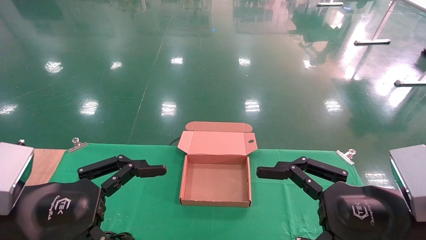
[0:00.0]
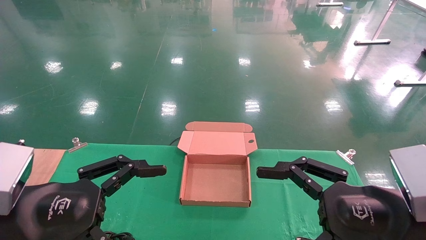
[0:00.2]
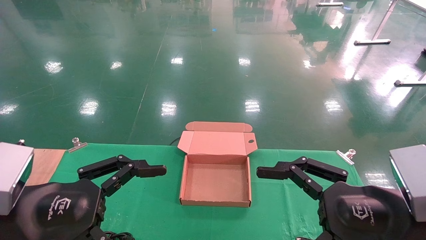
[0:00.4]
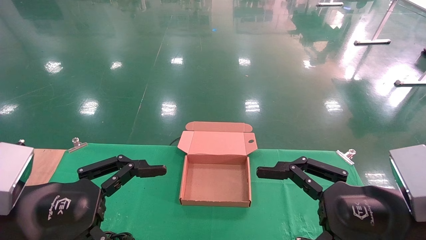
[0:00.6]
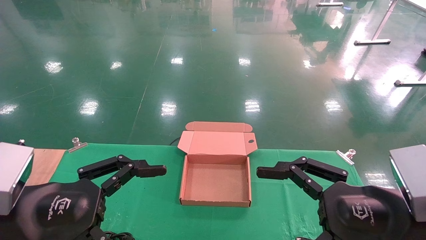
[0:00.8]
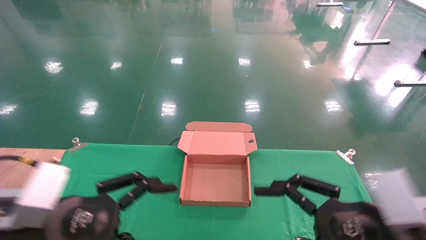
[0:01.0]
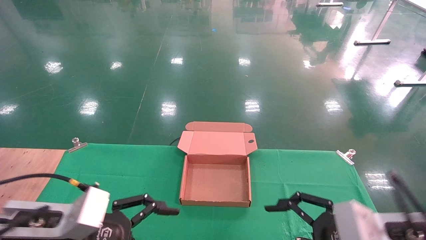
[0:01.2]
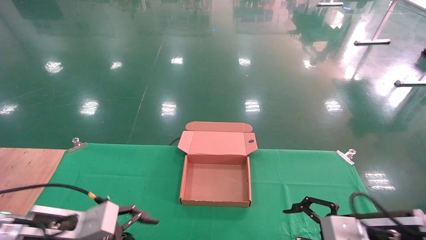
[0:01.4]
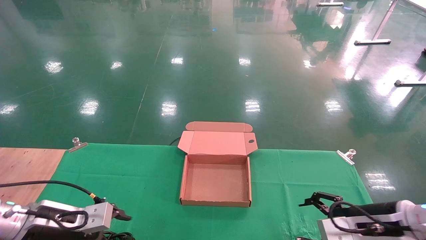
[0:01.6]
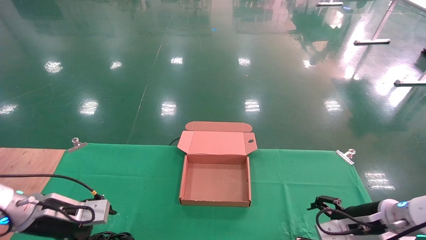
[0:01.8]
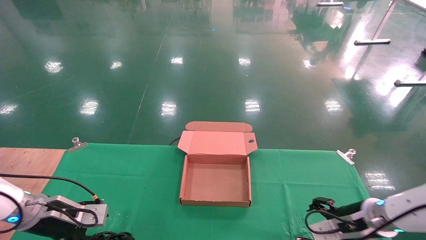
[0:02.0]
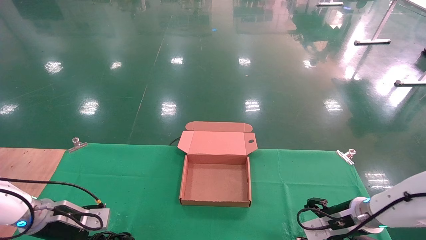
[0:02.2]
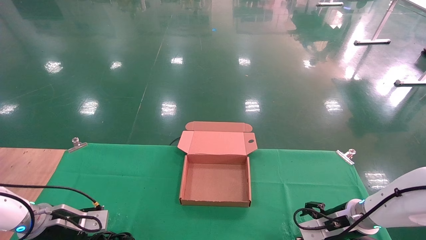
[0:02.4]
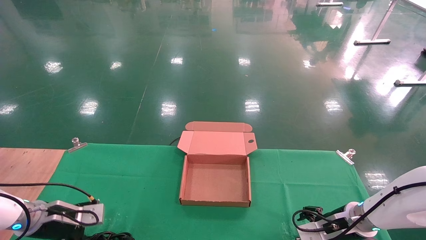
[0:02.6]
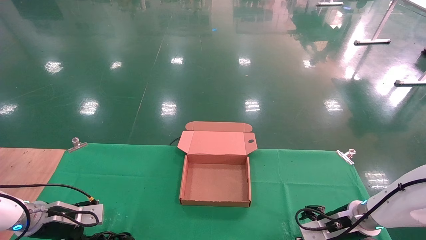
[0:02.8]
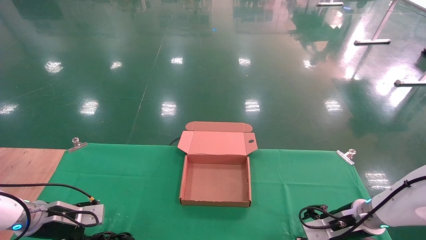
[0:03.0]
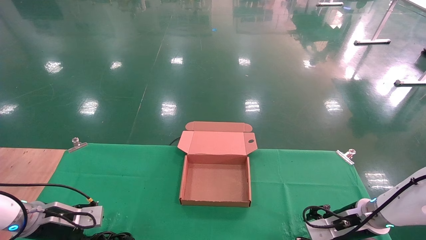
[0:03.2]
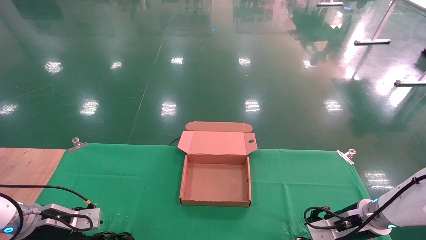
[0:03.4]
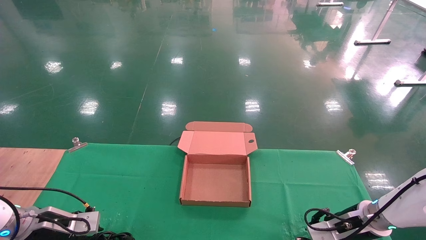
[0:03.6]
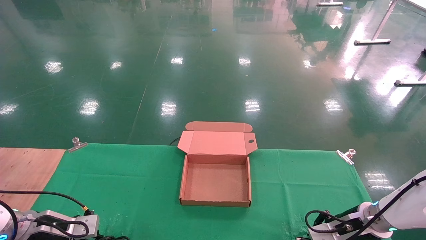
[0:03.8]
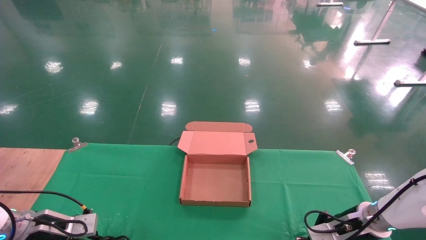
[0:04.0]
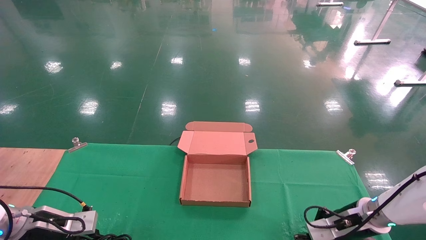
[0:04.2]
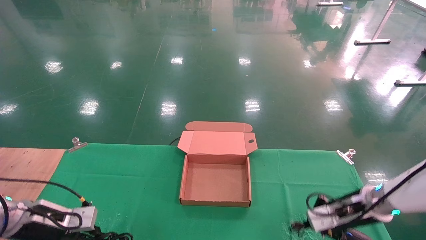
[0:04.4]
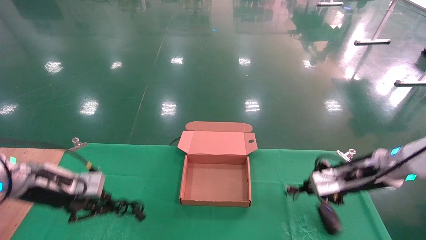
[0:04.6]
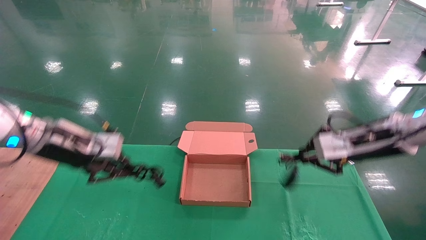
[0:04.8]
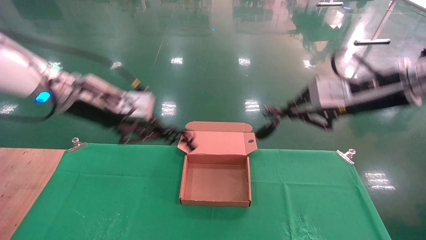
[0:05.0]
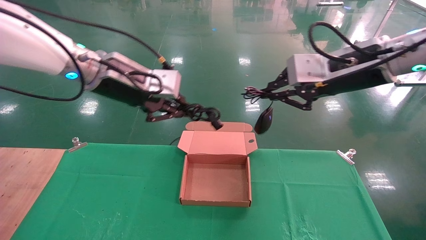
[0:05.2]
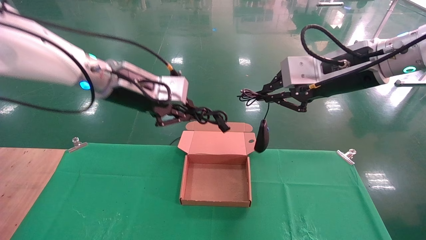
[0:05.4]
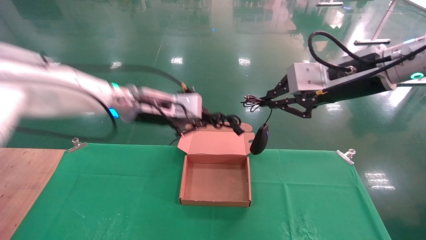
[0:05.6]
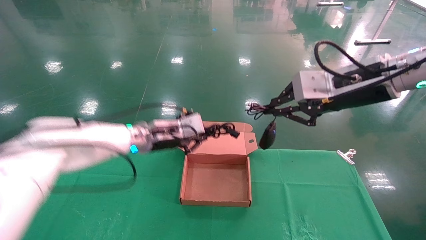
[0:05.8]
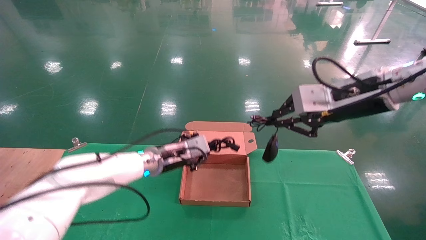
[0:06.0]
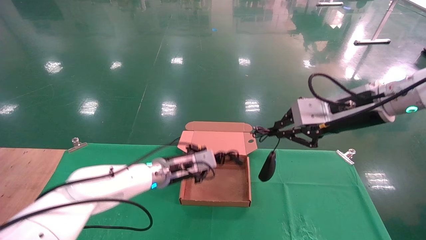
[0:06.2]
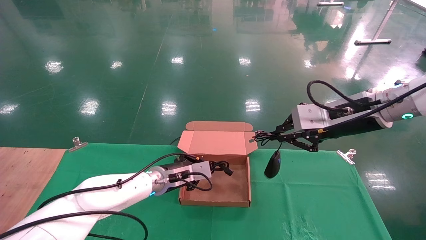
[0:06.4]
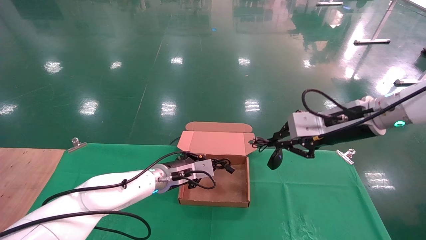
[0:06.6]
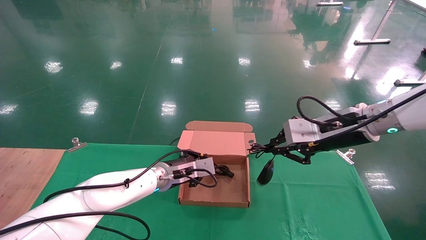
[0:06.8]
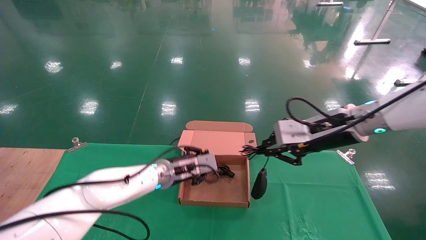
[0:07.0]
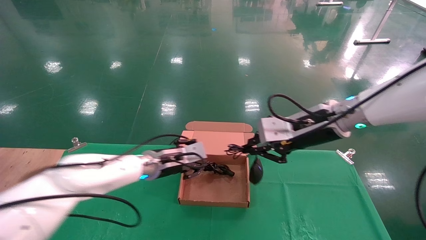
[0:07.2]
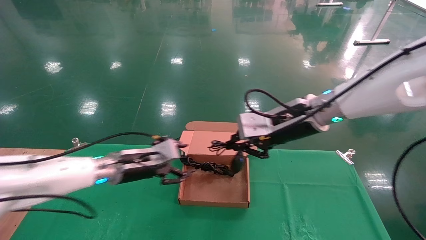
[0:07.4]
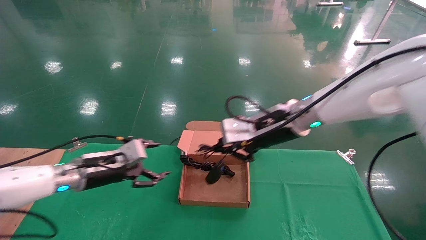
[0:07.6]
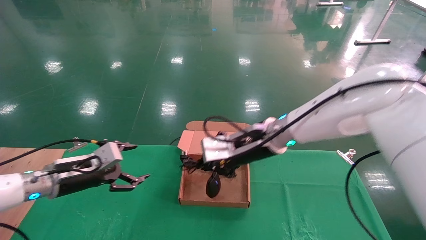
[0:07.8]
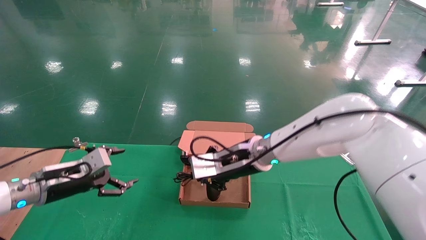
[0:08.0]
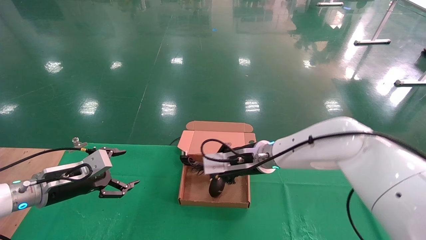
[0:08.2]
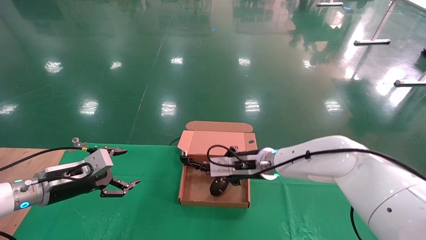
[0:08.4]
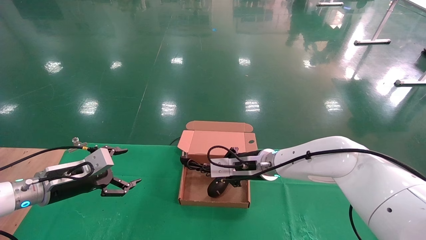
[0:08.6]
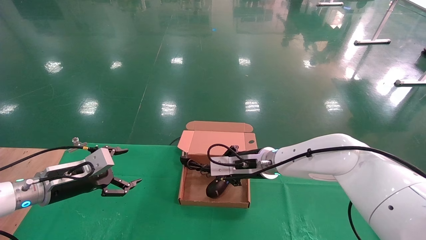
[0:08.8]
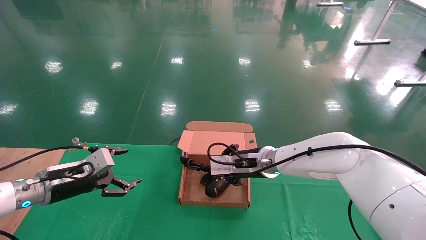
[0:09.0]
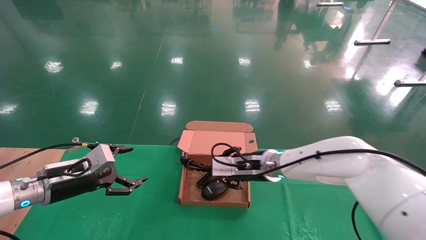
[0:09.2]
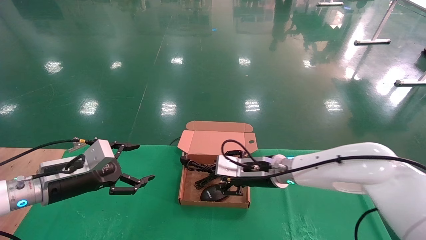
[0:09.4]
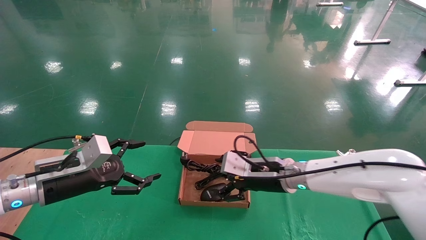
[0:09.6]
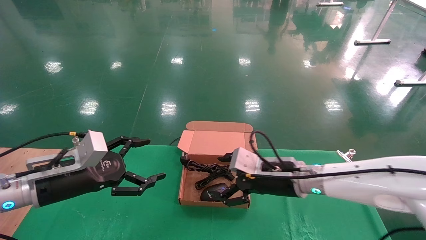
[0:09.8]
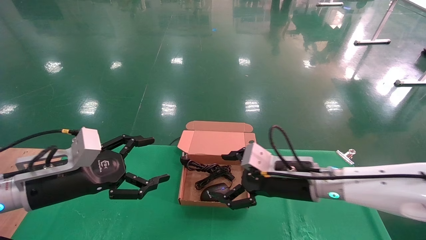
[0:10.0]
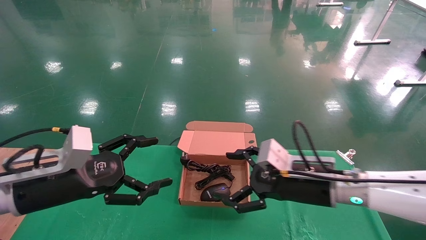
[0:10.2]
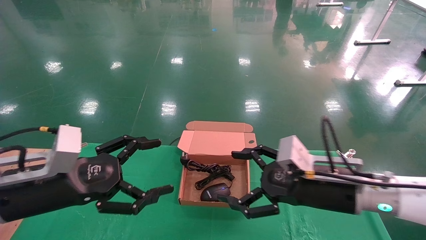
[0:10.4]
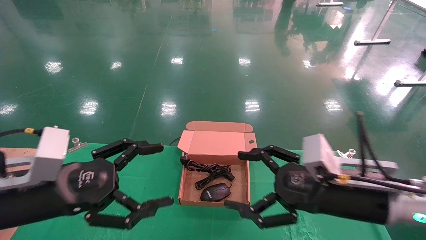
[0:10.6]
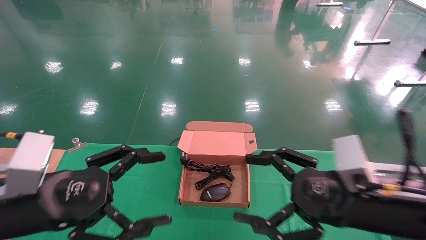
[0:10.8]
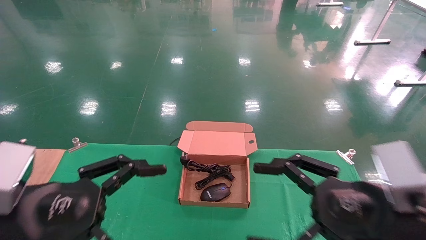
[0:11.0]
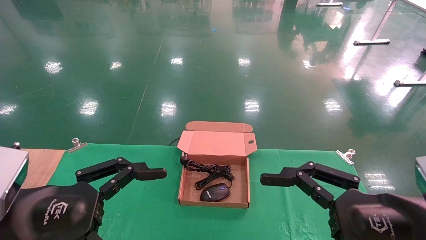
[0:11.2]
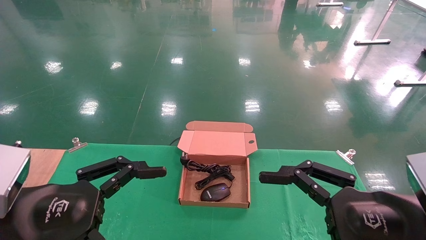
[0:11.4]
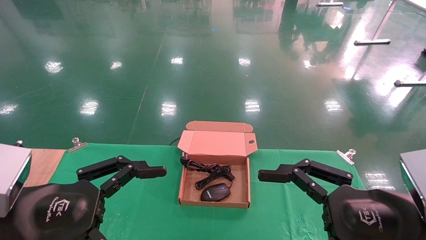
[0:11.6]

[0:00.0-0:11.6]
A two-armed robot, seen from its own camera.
Step, 0:01.4 to 0:04.6: Grab and lift both the mouse and power cord from the accessory packaging area at the same time.
Step, 0:04.8 to 0:09.0: Place the mouse and power cord into the box.
0:00.0 to 0:01.4: The two grippers go about 15 cm forward and downward.
0:01.4 to 0:02.8: The right gripper moves forward and downward, some 15 cm. Meanwhile the left gripper heads forward, to the left and downward, covering approximately 15 cm.
0:02.8 to 0:04.4: Both grippers move upward, some 5 cm. The right gripper closes its fingers. Meanwhile the left gripper closes its fingers.
0:04.4 to 0:05.8: The right gripper travels upward by approximately 25 cm. The left gripper travels to the right, upward and forward by approximately 30 cm.
0:05.8 to 0:07.2: The left gripper moves downward, about 10 cm. The right gripper travels downward and to the left by roughly 10 cm.
0:07.2 to 0:08.8: The right gripper travels downward, to the left and forward by about 20 cm, while the left gripper is displaced to the left by about 20 cm, and opens up.
0:08.8 to 0:10.2: The left gripper heads backward, upward and to the right, covering approximately 15 cm, while the right gripper is displaced backward and to the right by some 15 cm, and opens its fingers.
0:10.2 to 0:11.6: The left gripper heads backward, covering about 10 cm. The right gripper shifts about 15 cm backward and to the right.
